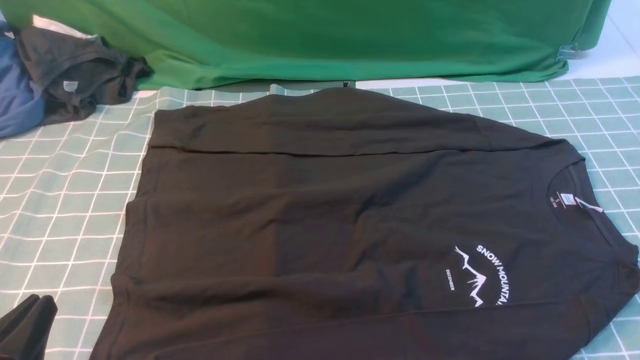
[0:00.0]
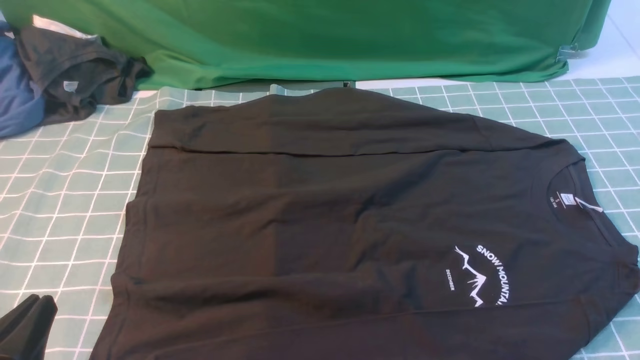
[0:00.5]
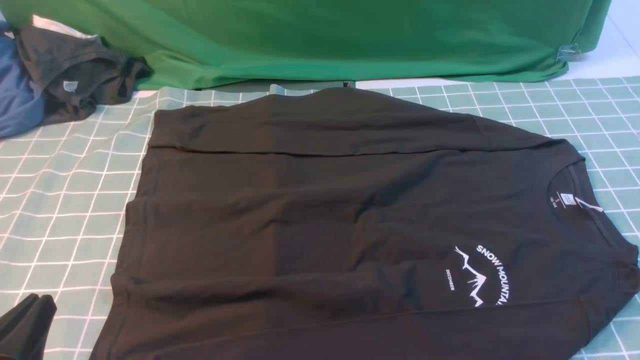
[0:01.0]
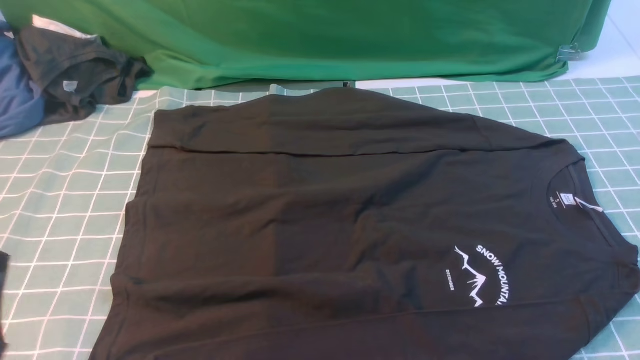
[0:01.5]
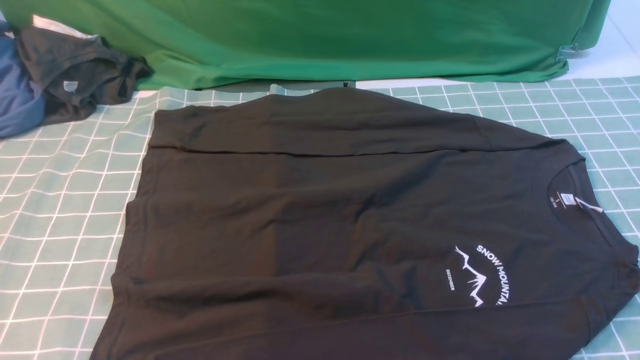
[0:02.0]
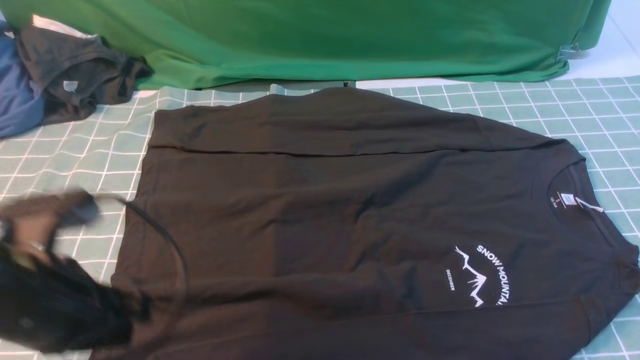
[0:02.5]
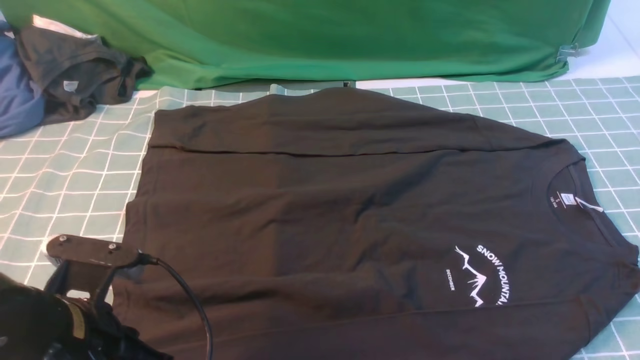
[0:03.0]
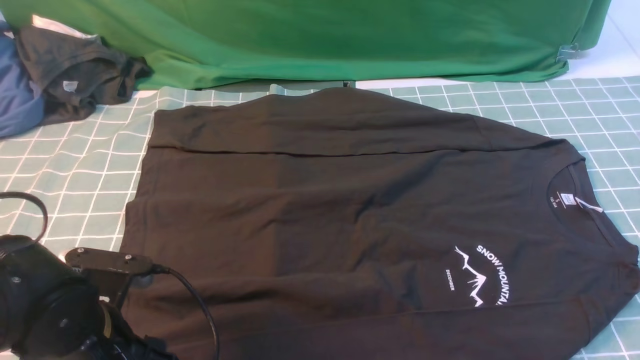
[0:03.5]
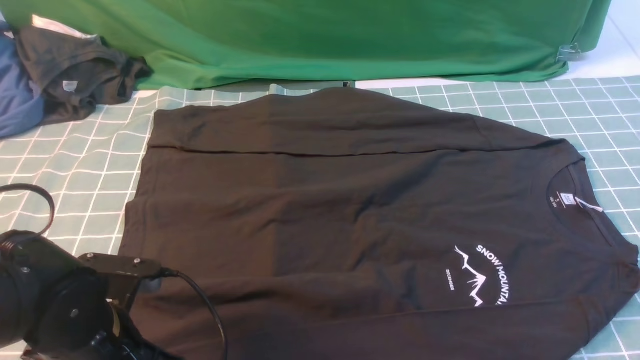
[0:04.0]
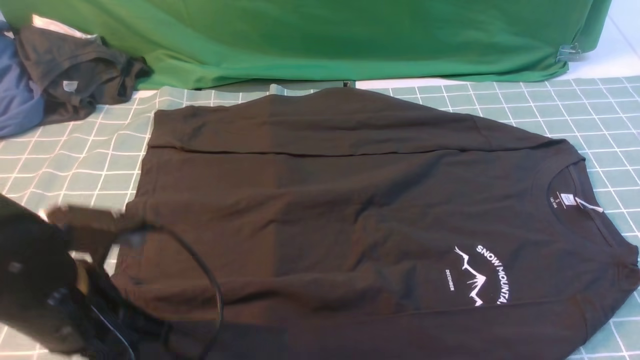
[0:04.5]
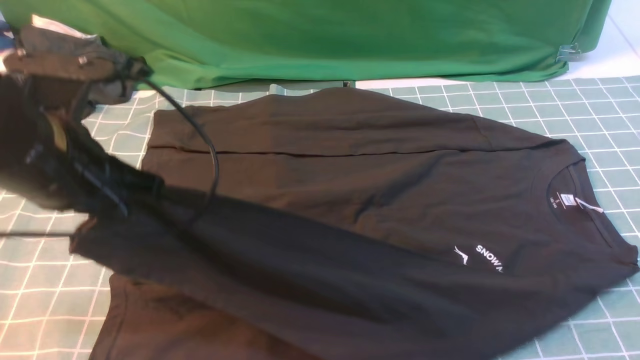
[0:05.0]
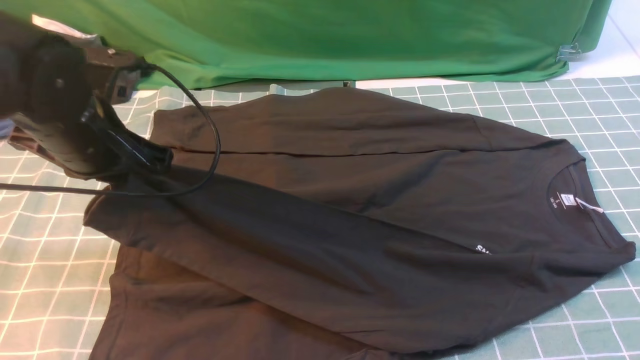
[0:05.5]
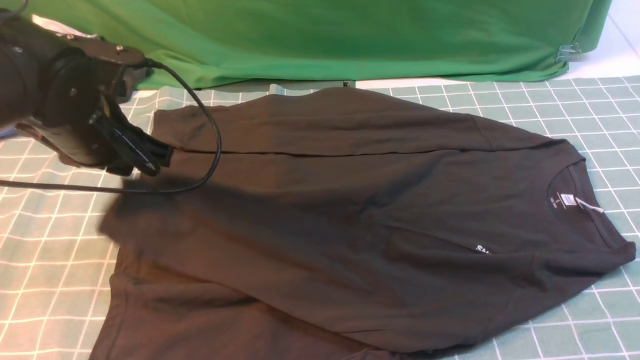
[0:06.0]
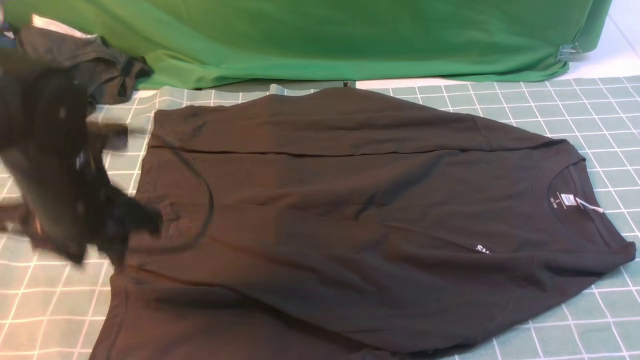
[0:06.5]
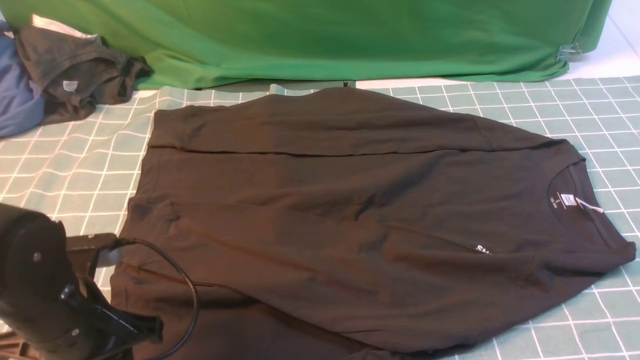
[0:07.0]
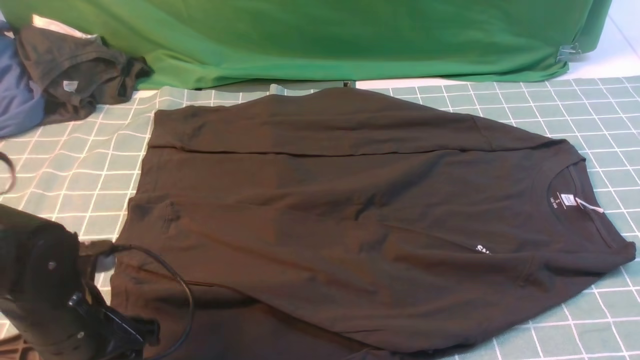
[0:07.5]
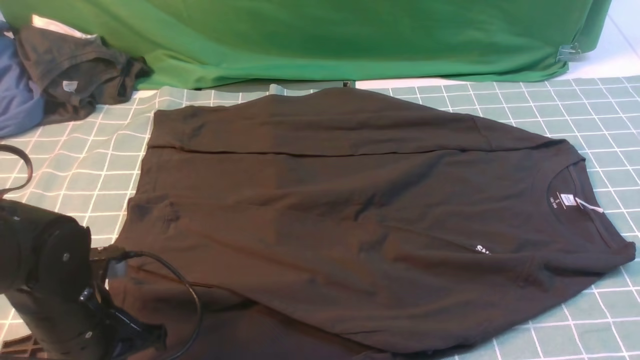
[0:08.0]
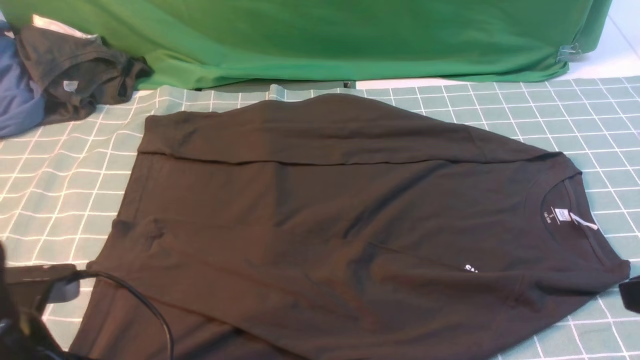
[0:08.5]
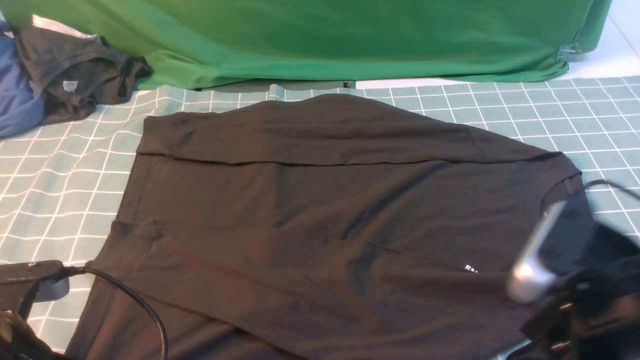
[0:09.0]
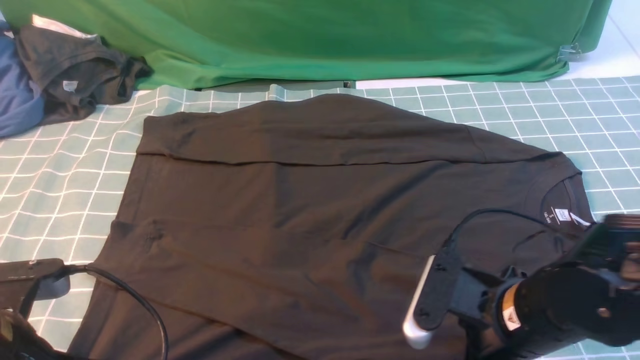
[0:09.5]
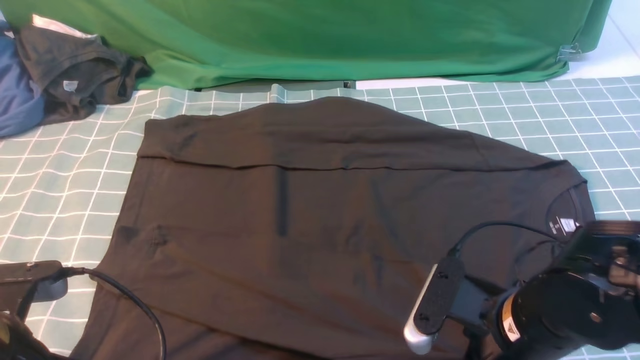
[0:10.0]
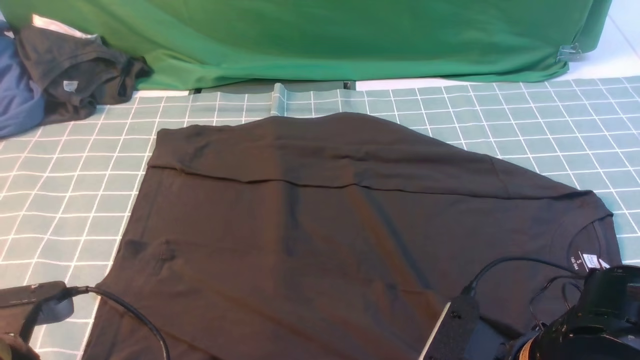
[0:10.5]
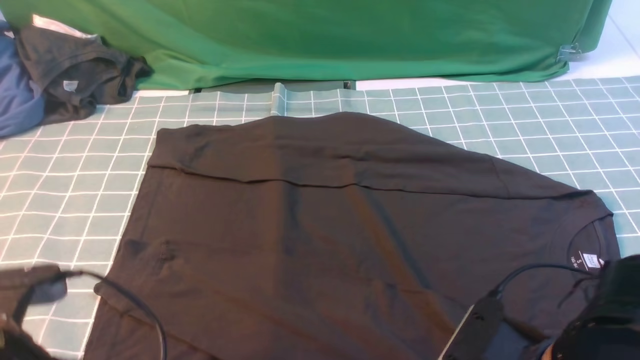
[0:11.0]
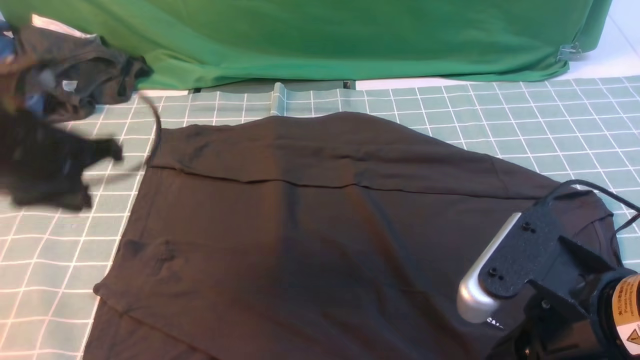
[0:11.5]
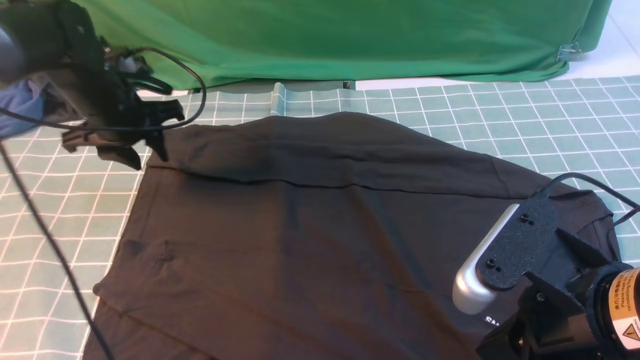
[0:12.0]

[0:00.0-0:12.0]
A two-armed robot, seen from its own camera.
Step, 0:00.0 to 0:04.5: use the left arm to clamp the cuff closest to it.
Step, 0:05.0 to 0:06.0: use the left arm to drag and place the cuff at the centered position on the left edge of the fabric.
0:00.0 to 0:02.0: The left gripper heads upward, covering approximately 15 cm.
0:02.0 to 0:04.0: The left gripper moves downward and forward, approximately 20 cm, and opens, then closes once more.
0:04.0 to 0:06.0: The left gripper goes some 20 cm forward and upward.
0:06.0 to 0:08.0: The left gripper shifts about 15 cm backward and downward, and opens, then closes again.
0:08.0 to 0:10.0: The right gripper goes approximately 20 cm to the left and downward, and opens, then closes once more. Meanwhile the left gripper is displaced upward and backward by some 10 cm.
0:10.0 to 0:12.0: The right gripper moves upward, roughly 10 cm, and opens, then closes again. Meanwhile the left gripper travels forward by roughly 30 cm, and opens its fingers.

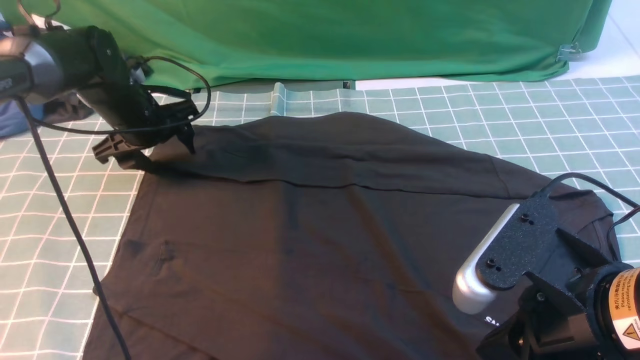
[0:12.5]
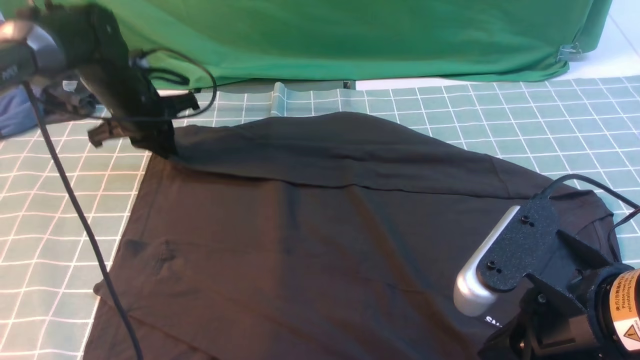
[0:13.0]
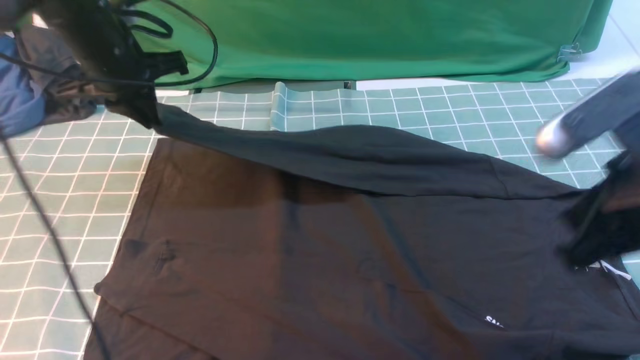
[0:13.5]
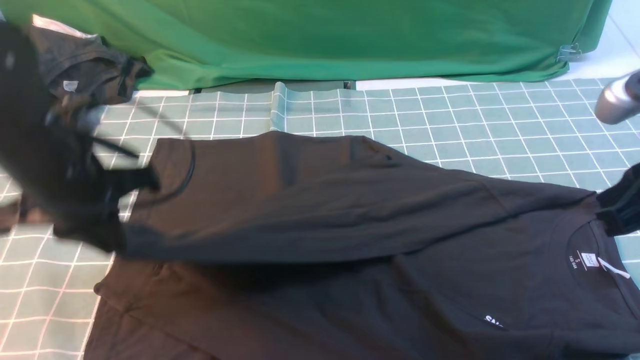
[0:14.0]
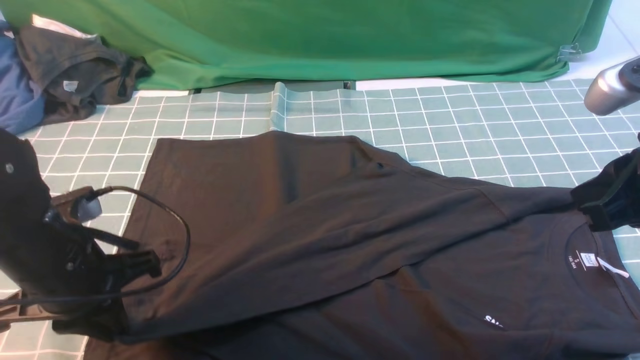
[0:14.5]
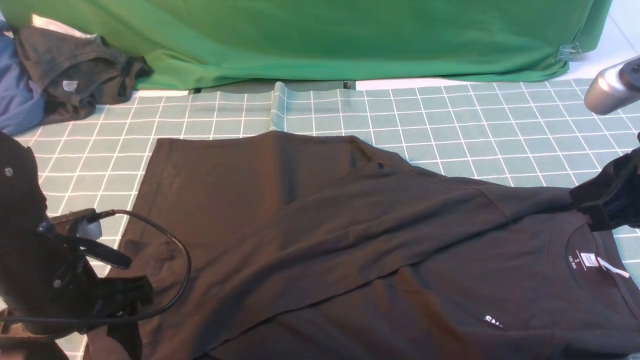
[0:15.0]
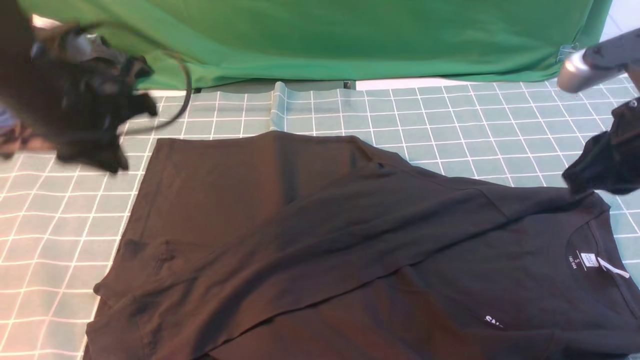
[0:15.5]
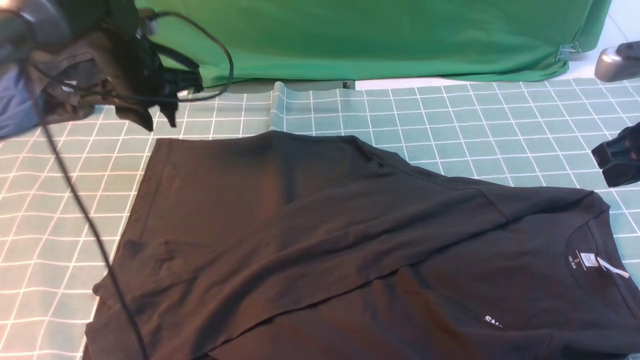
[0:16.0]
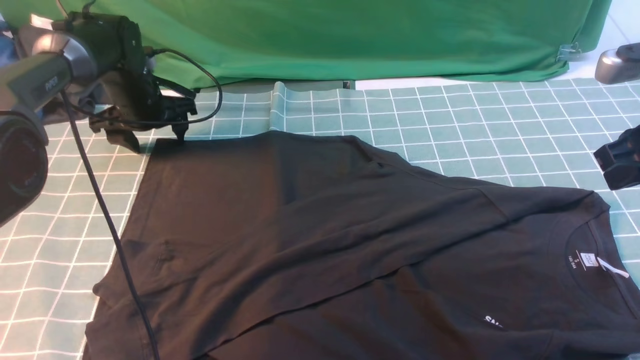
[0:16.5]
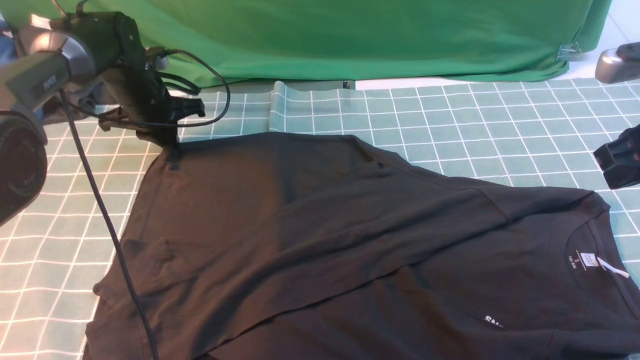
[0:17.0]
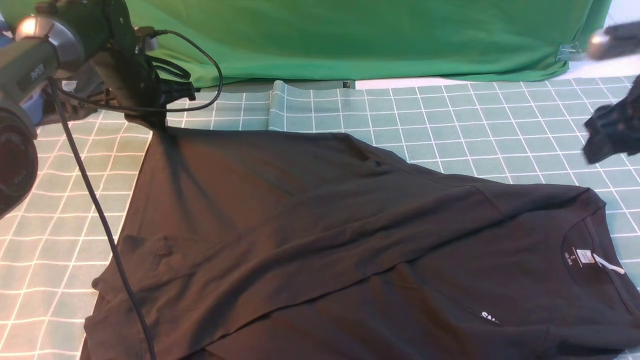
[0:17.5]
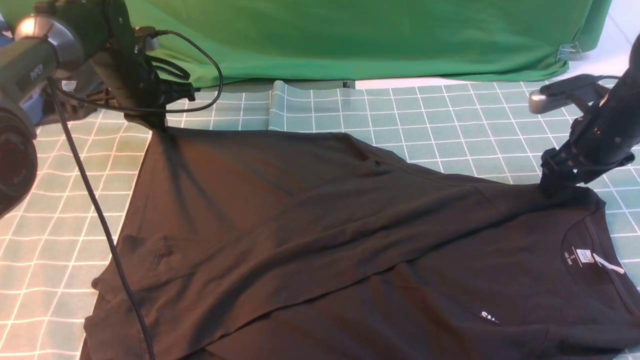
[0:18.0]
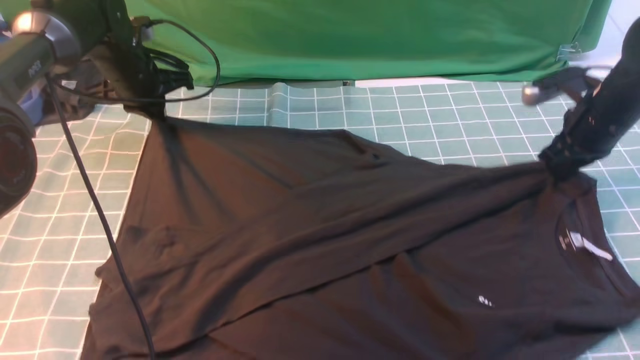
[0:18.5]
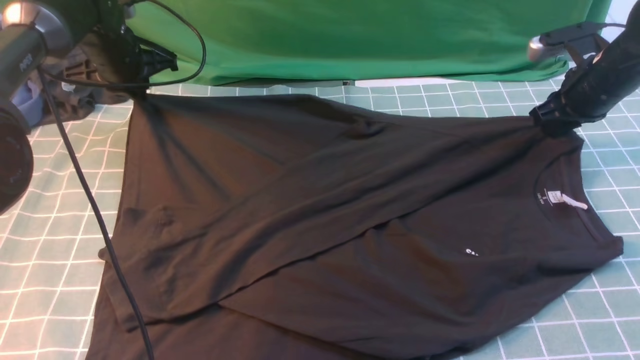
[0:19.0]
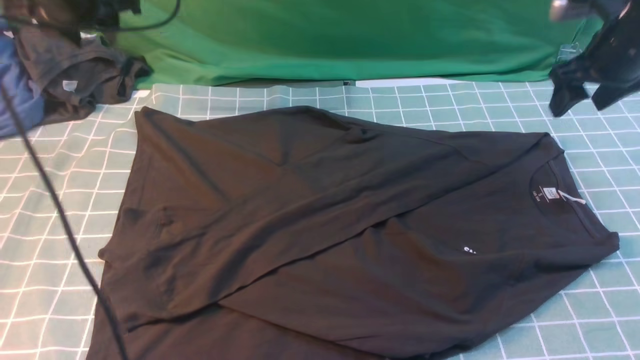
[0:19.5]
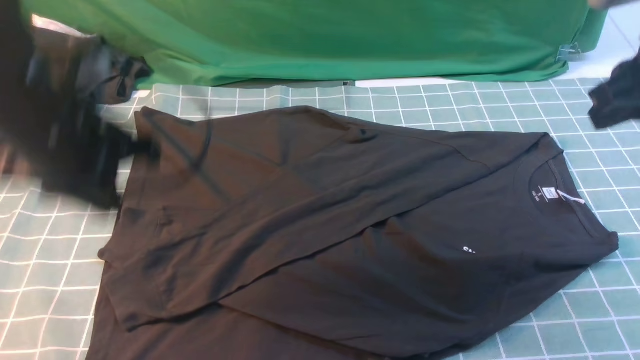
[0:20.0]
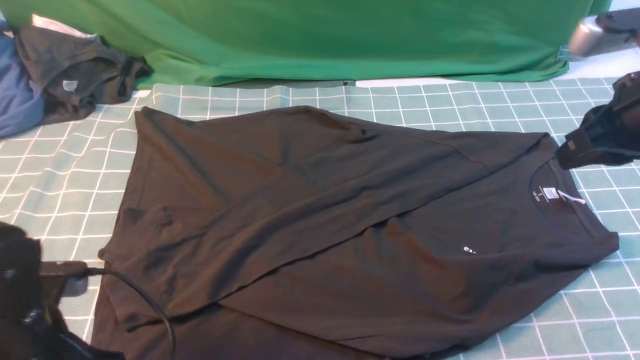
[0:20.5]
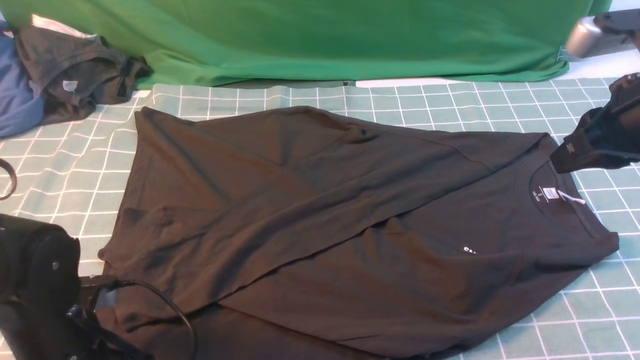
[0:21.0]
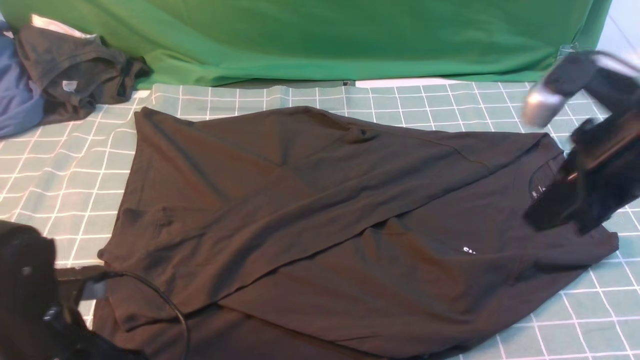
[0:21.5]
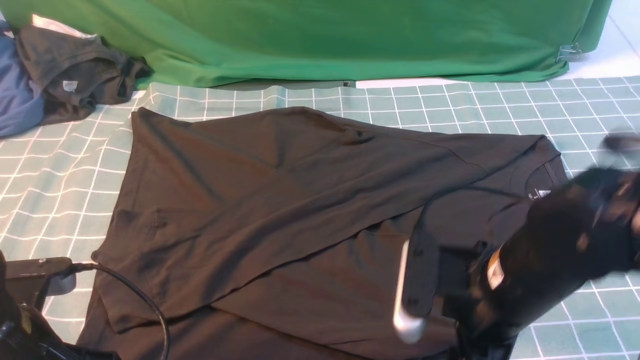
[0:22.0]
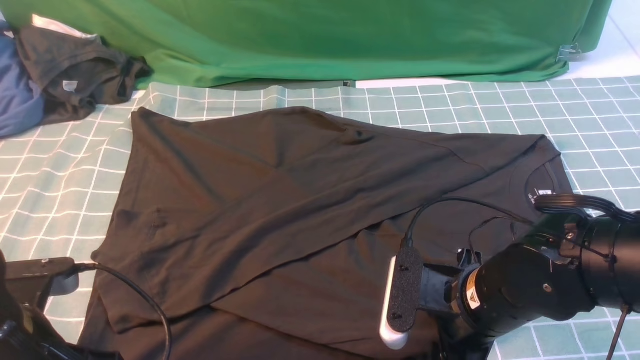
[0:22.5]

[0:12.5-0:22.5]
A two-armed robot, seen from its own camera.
Step, 0:13.5 to 0:15.0: use the left arm to drag and drop the cuff onto the cuff closest to the left arm.
0:12.5 to 0:14.5: The right gripper is displaced forward and to the right by roughly 10 cm, while the left gripper shifts approximately 25 cm backward, and closes up.
0:14.5 to 0:16.5: The right gripper heads forward and to the right, covering some 10 cm. Meanwhile the left gripper heads forward, covering roughly 30 cm, and opens its fingers.
0:16.5 to 0:18.5: The right gripper travels forward and downward by about 15 cm, and opens and closes again. Meanwhile the left gripper closes.
0:18.5 to 0:20.5: The right gripper heads backward and upward, covering roughly 20 cm, and opens and closes again. Meanwhile the left gripper goes some 35 cm backward, and opens up.
0:20.5 to 0:22.5: The left gripper closes up, while the right gripper shifts about 25 cm downward, to the left and backward, and opens.
